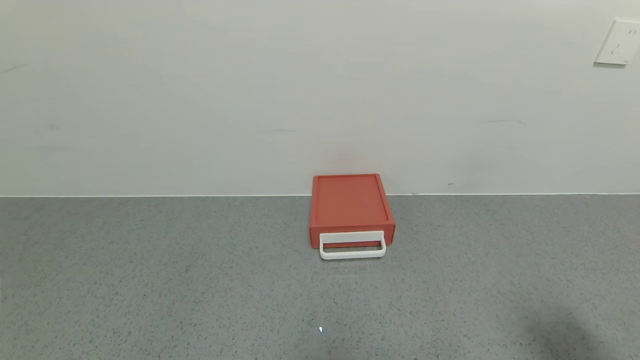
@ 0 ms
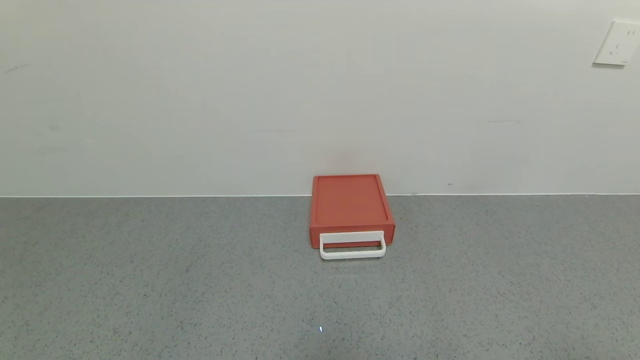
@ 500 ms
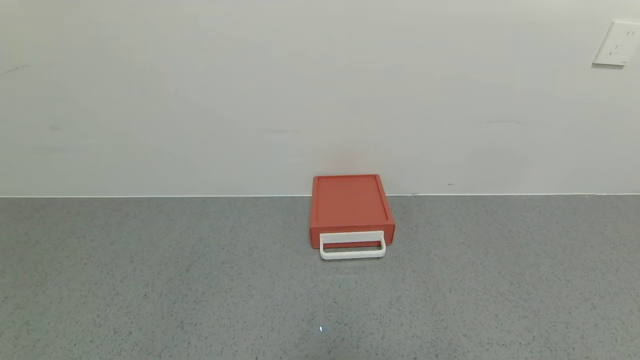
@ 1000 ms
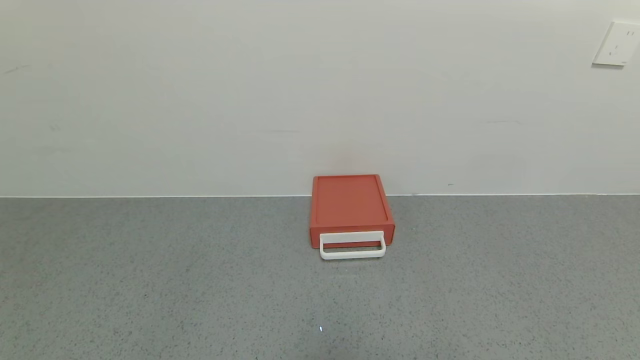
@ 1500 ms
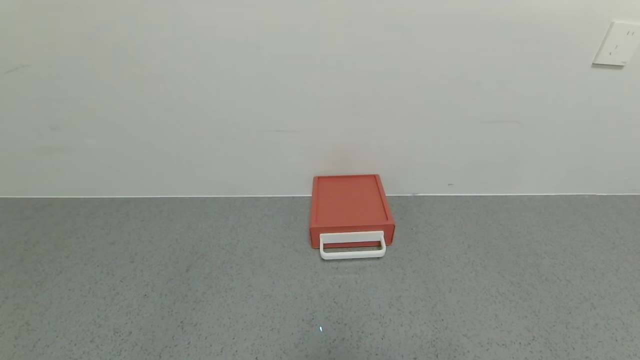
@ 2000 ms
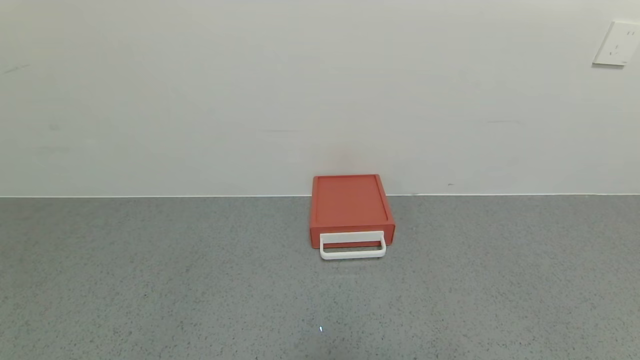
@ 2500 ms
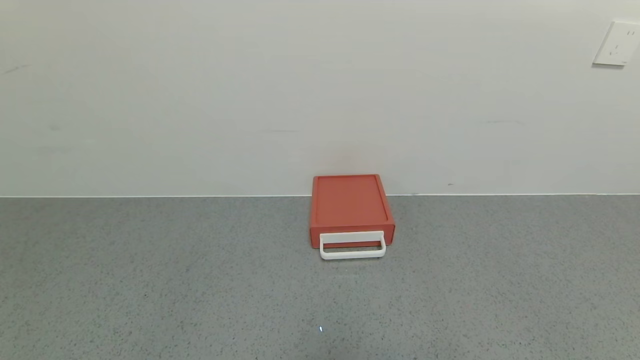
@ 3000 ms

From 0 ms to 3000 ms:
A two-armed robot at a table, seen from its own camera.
Task of the whole recording: use the gripper to open the drawer and close the red drawer.
From 0 ms to 1500 ms: The right gripper moves backward and downward, some 15 cm.

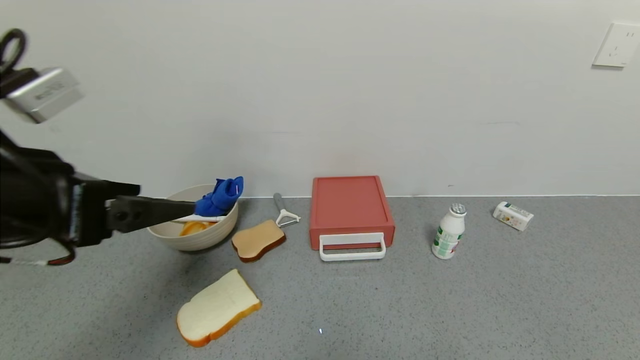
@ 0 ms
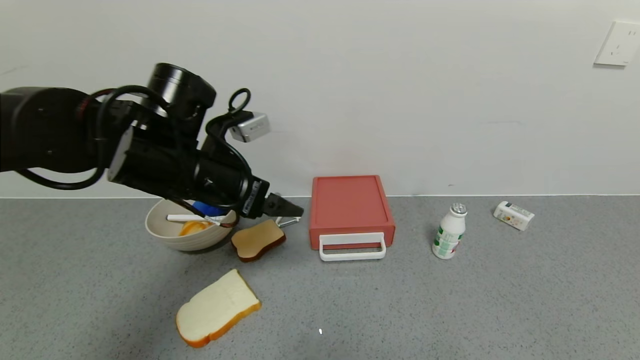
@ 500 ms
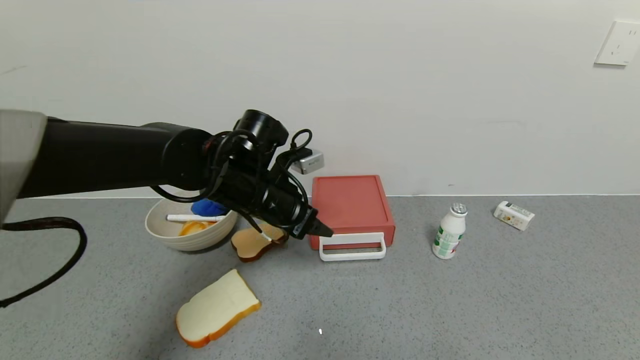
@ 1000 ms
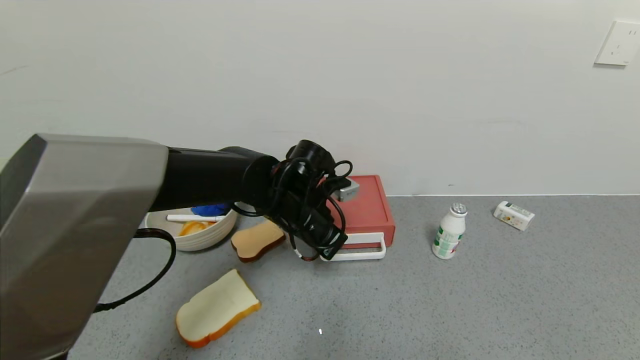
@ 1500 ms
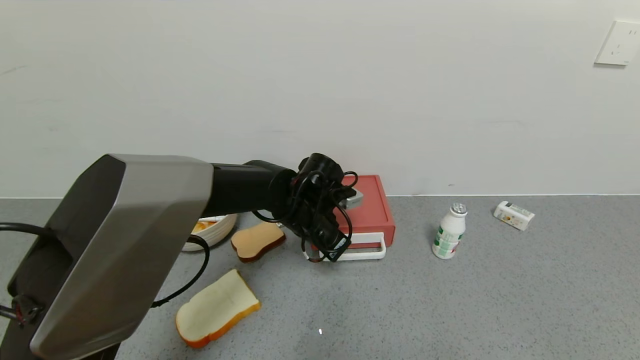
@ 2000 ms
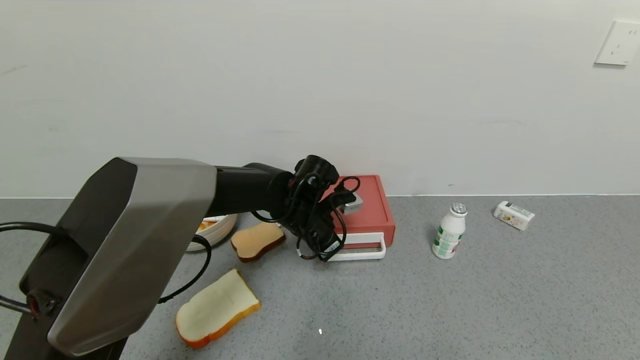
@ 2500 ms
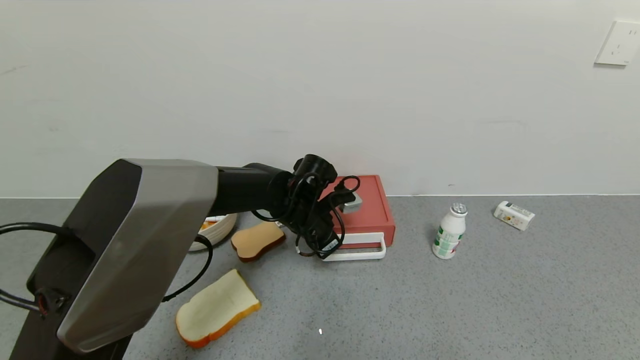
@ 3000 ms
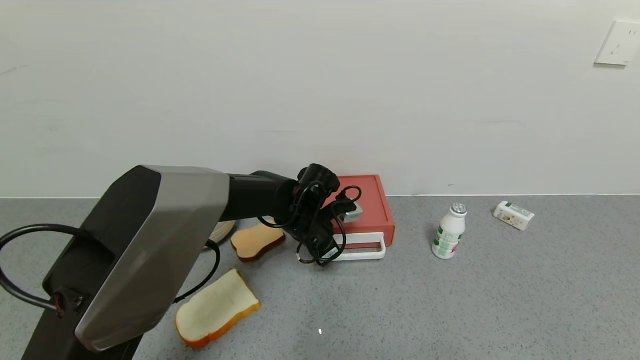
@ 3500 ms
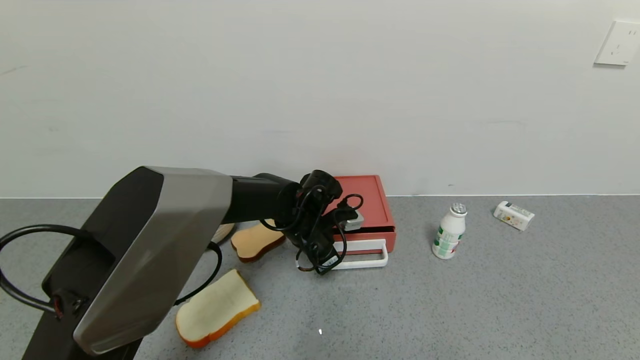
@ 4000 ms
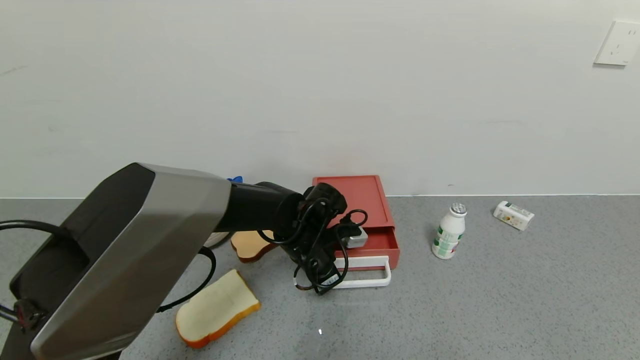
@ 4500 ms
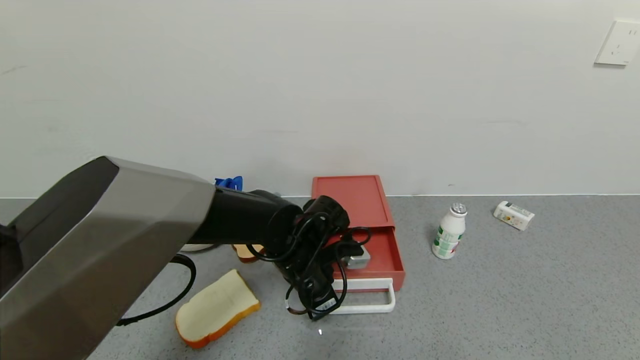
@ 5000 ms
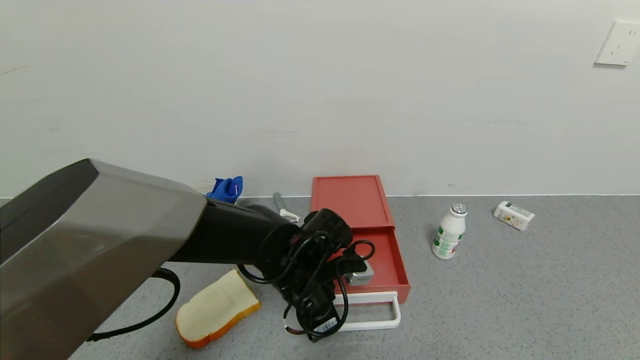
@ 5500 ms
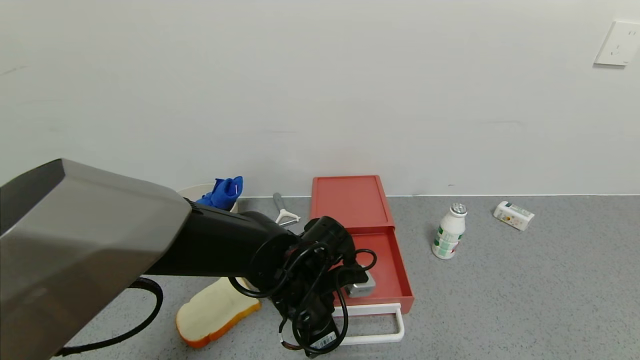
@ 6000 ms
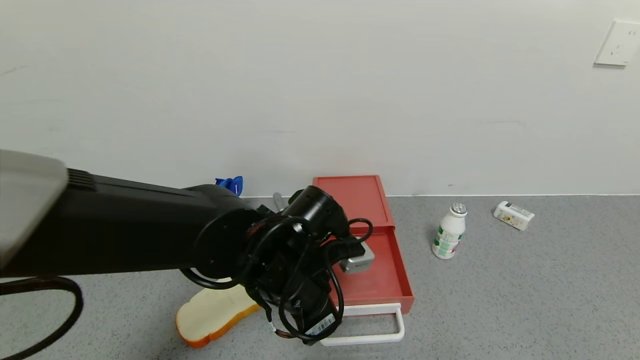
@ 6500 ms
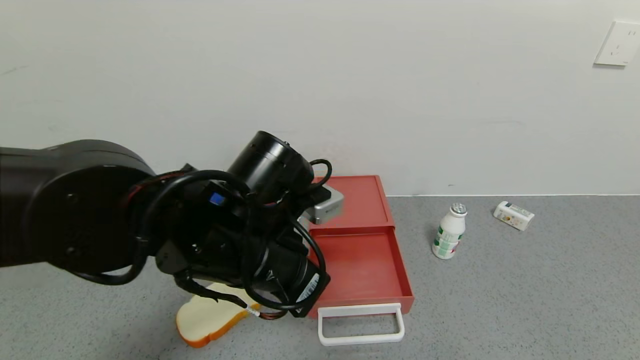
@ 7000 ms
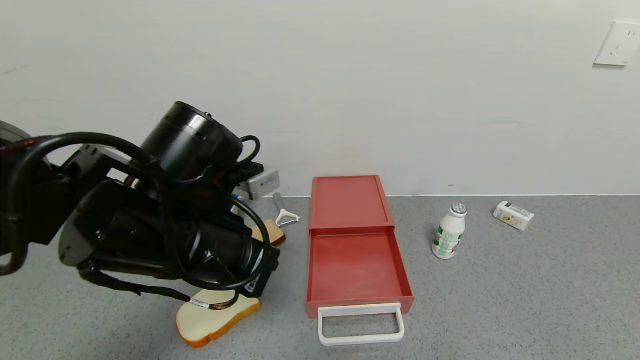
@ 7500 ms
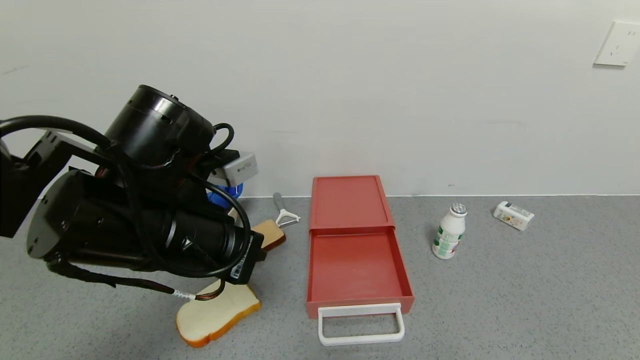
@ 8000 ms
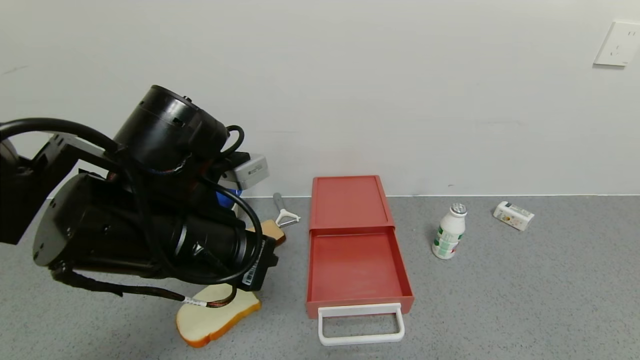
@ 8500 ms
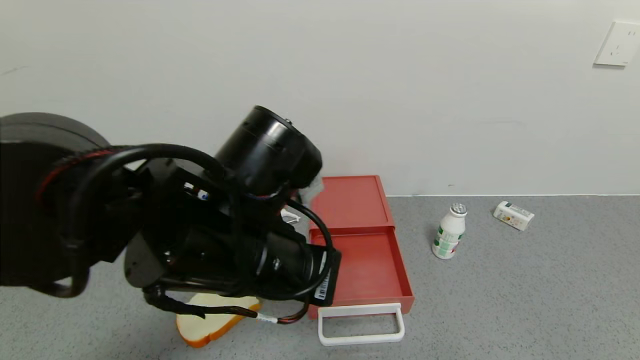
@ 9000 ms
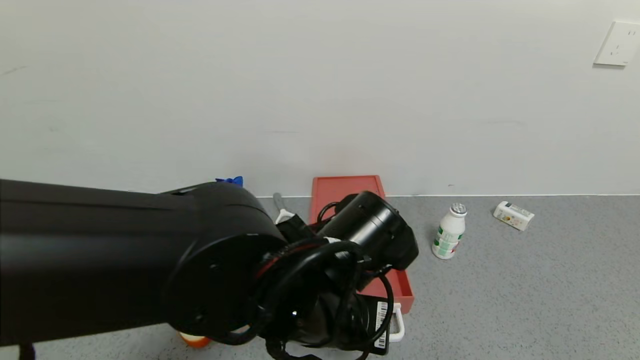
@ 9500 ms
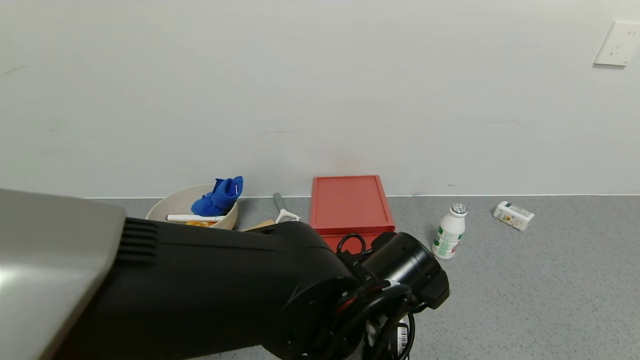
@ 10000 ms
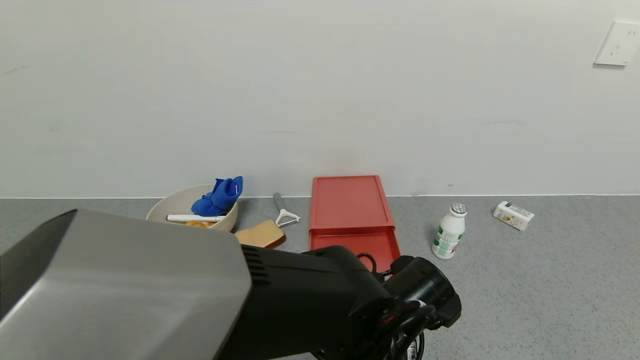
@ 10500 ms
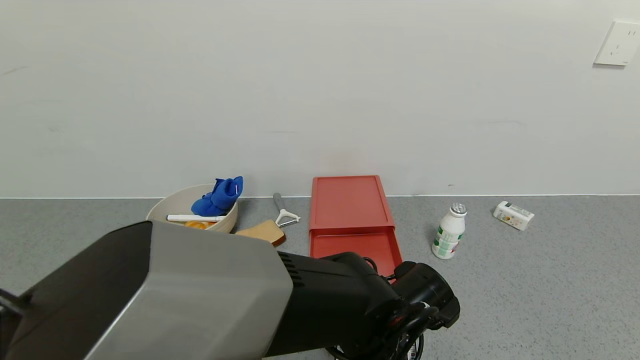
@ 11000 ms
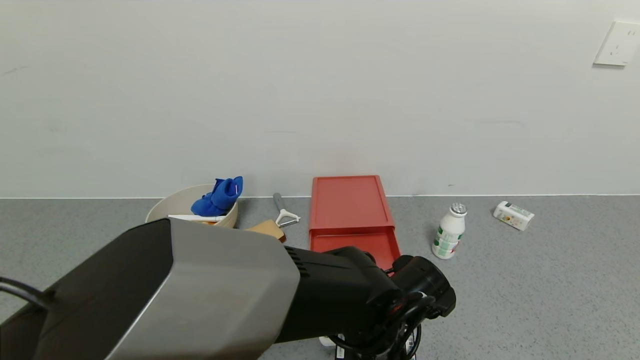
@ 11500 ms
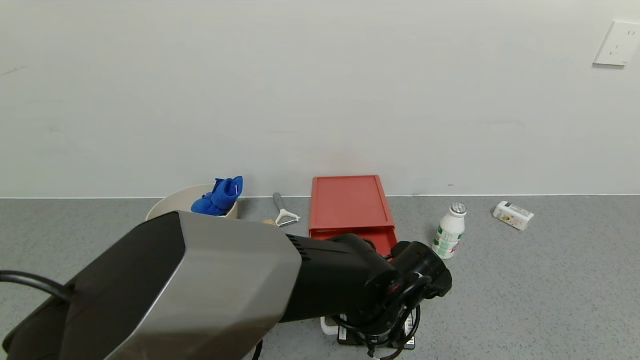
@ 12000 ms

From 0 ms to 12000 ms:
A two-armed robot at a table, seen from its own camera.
Task of the whole recording: use the gripper to open the drawer and close the red drawer.
Step, from 0 ms to 6500 ms: Open the red drawer with the left gripper.
From 0 ms to 2000 ms: The left gripper is displaced forward, to the right and downward by approximately 35 cm, and closes.
From 2000 ms to 4000 ms: The grippers stay close to where they were, moving slightly.
From 4000 ms to 6000 ms: The left gripper goes some 10 cm backward.
From 6000 ms to 8000 ms: The left gripper moves upward and to the left, approximately 20 cm.
From 8000 ms to 10000 ms: The left gripper heads to the right and downward, covering about 20 cm.
From 10000 ms to 12000 ms: The left gripper is displaced downward and forward by about 10 cm.

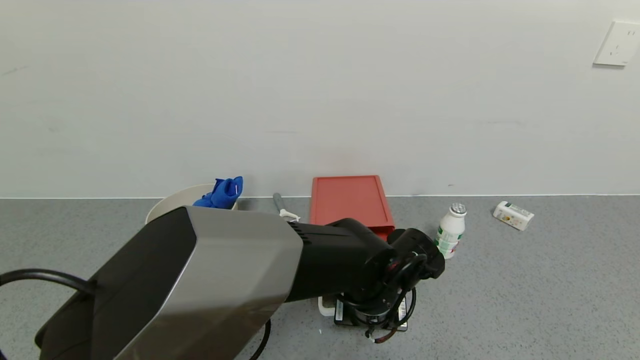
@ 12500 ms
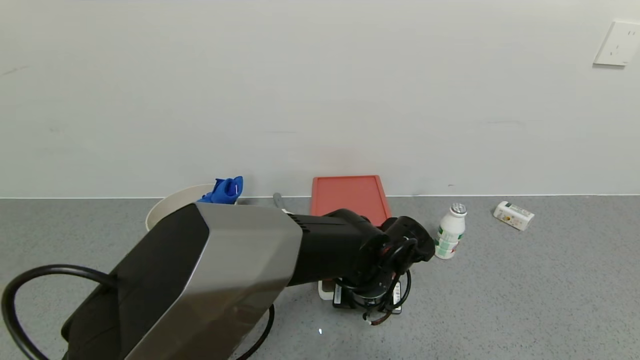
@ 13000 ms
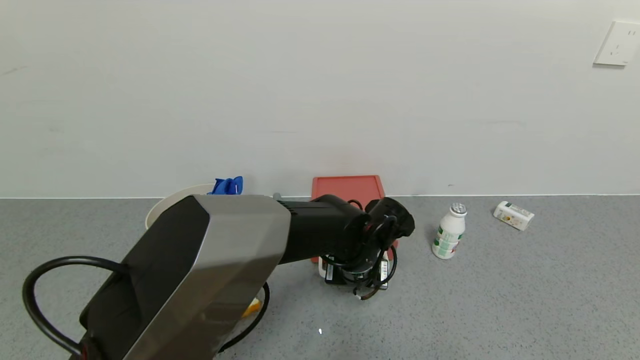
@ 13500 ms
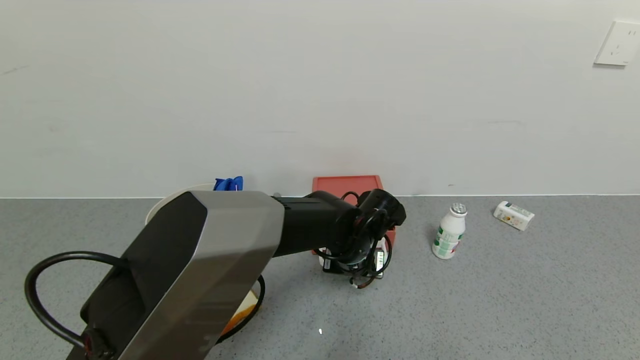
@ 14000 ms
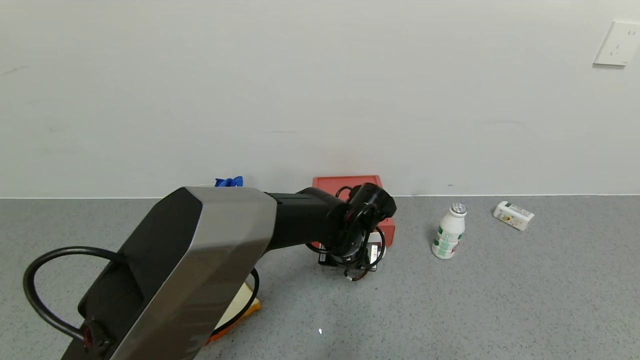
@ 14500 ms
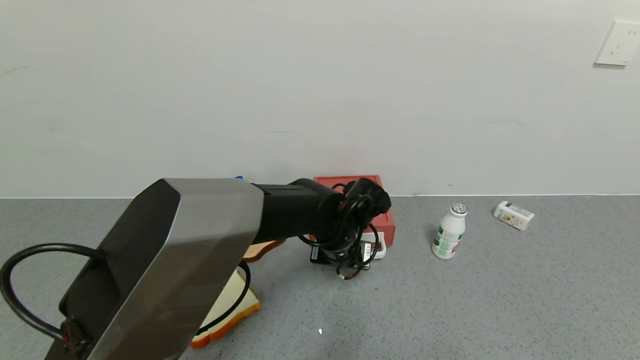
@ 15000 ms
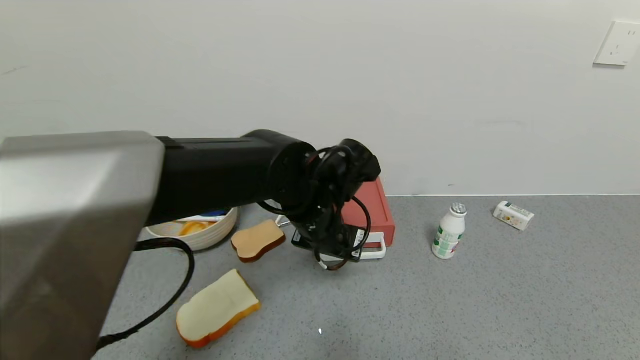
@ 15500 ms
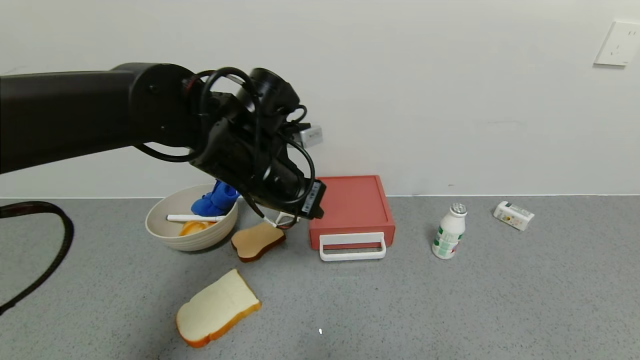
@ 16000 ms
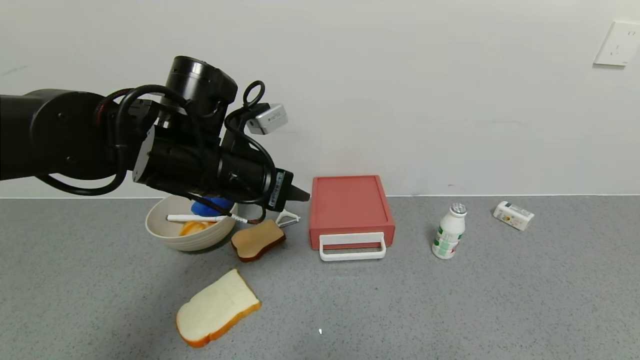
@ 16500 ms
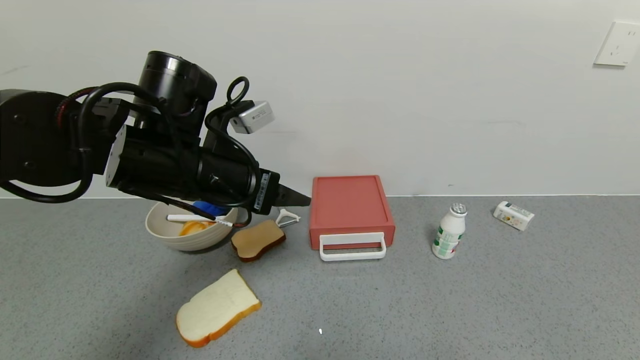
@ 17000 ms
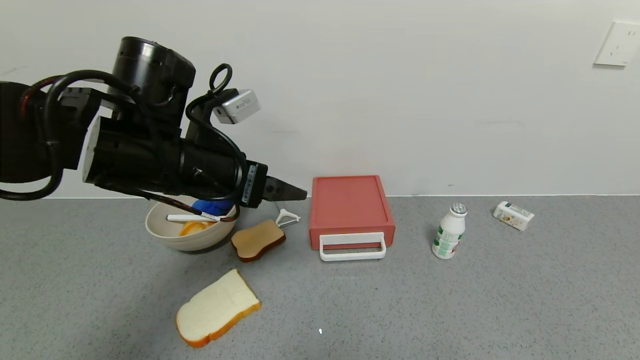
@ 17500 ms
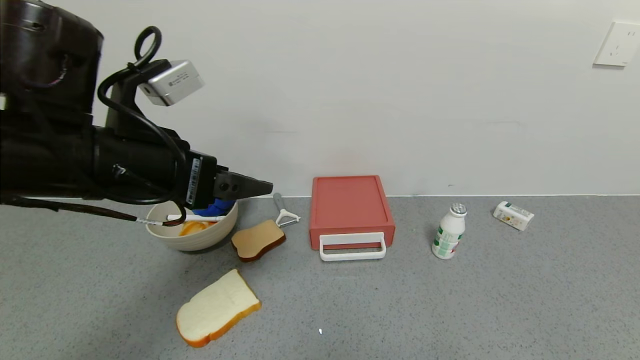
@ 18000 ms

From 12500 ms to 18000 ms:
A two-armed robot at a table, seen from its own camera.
Task of the whole recording: use the gripper to open the drawer and close the red drawer.
Step, from 12500 ms to 15000 ms: Close the red drawer with the left gripper.
From 12500 ms to 14500 ms: The left gripper is displaced forward by some 10 cm.
From 14500 ms to 16000 ms: The left gripper travels upward and to the left by approximately 20 cm.
From 16000 ms to 18000 ms: The left gripper goes roughly 15 cm to the left and backward, and opens its fingers.
